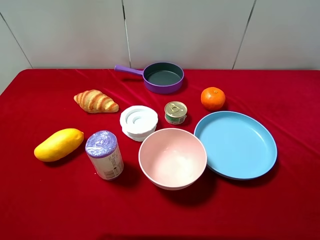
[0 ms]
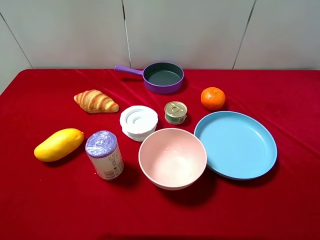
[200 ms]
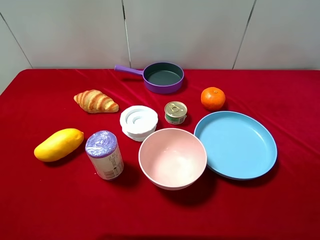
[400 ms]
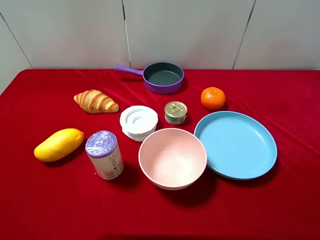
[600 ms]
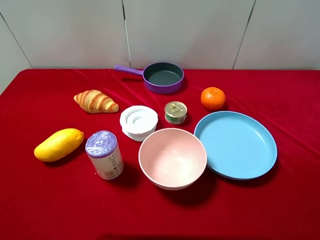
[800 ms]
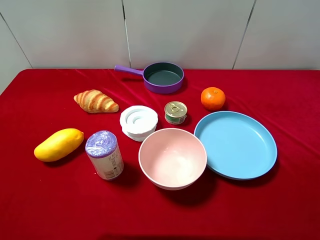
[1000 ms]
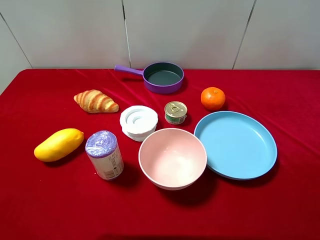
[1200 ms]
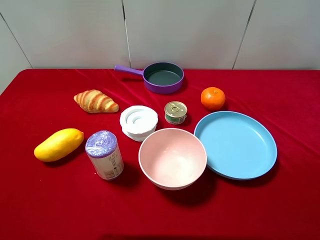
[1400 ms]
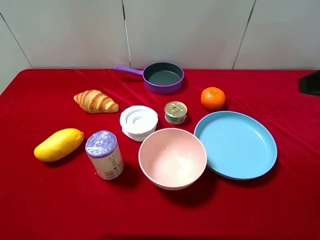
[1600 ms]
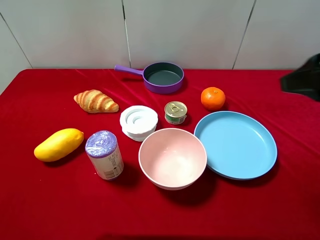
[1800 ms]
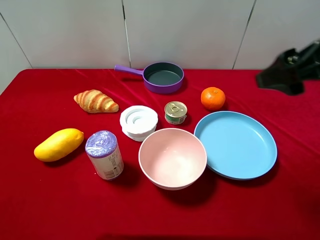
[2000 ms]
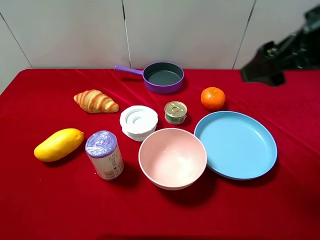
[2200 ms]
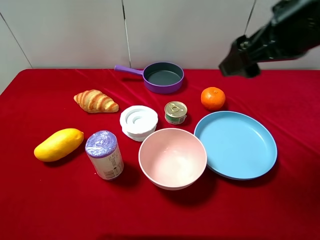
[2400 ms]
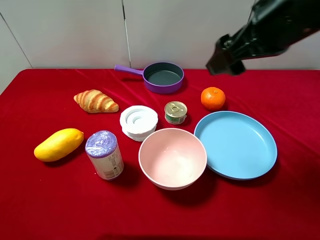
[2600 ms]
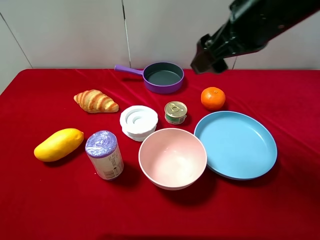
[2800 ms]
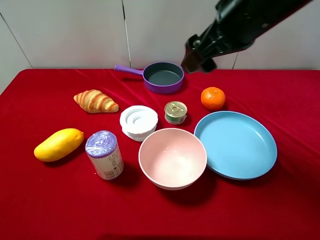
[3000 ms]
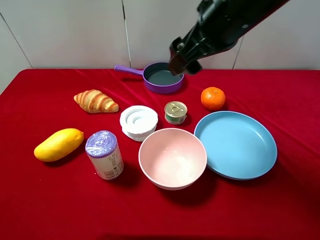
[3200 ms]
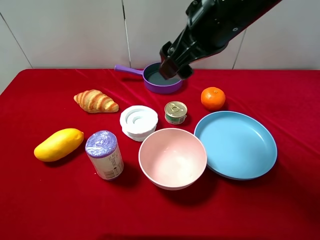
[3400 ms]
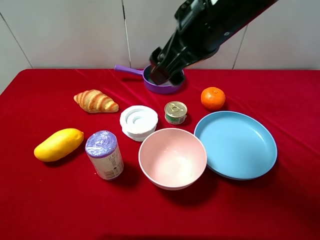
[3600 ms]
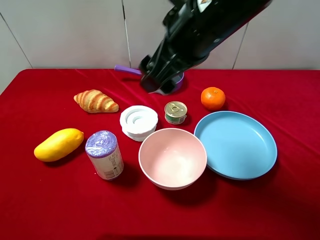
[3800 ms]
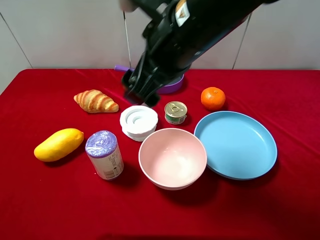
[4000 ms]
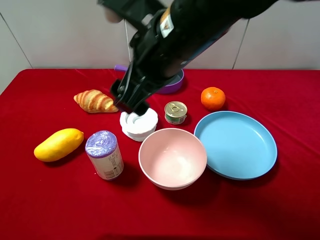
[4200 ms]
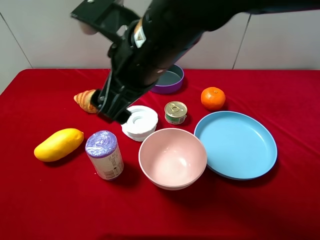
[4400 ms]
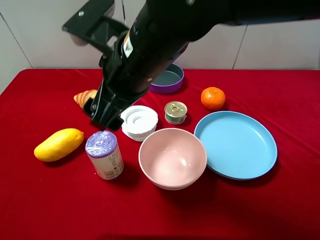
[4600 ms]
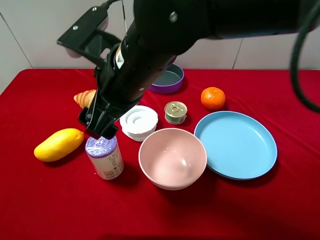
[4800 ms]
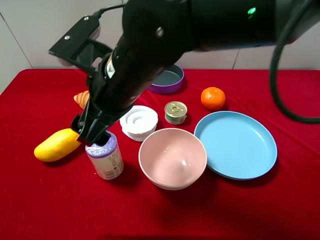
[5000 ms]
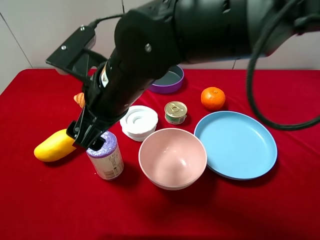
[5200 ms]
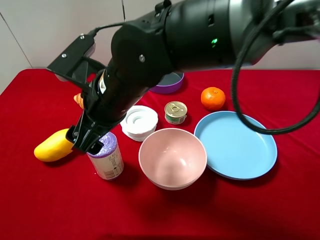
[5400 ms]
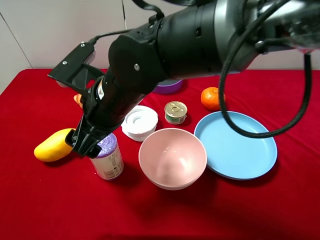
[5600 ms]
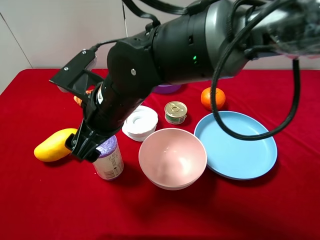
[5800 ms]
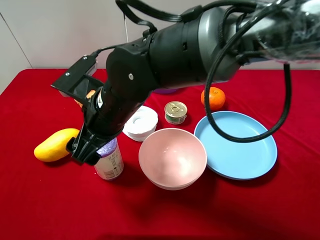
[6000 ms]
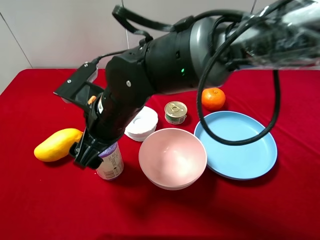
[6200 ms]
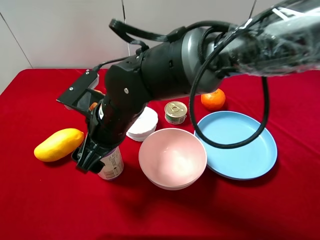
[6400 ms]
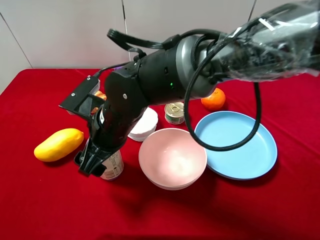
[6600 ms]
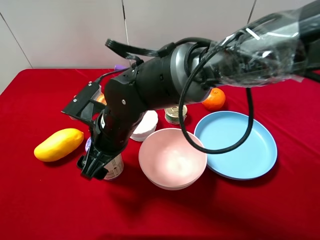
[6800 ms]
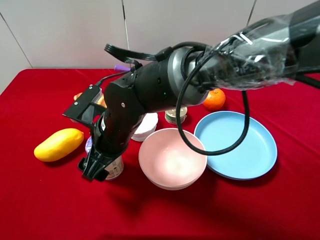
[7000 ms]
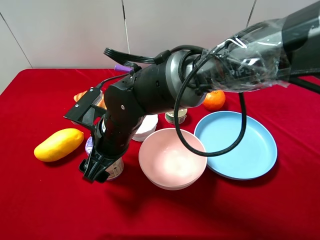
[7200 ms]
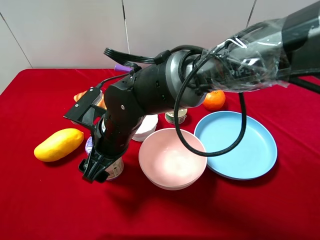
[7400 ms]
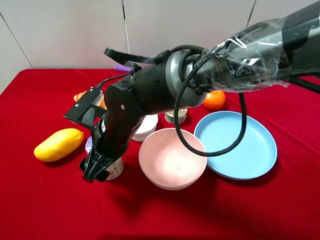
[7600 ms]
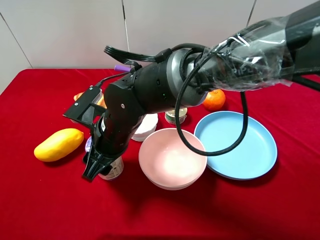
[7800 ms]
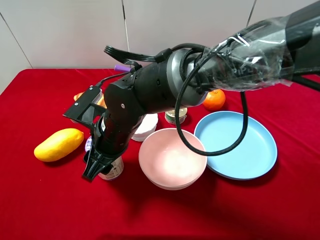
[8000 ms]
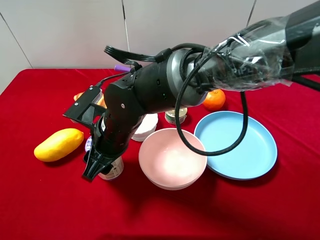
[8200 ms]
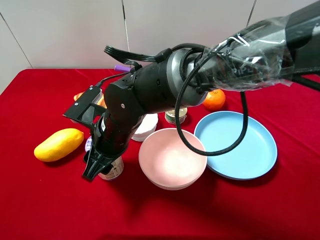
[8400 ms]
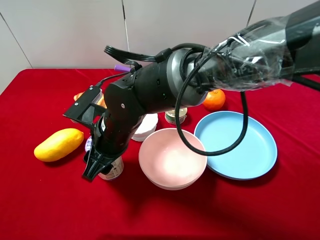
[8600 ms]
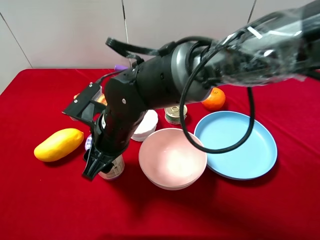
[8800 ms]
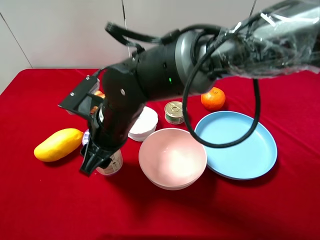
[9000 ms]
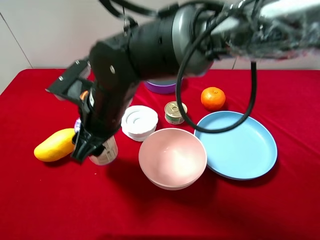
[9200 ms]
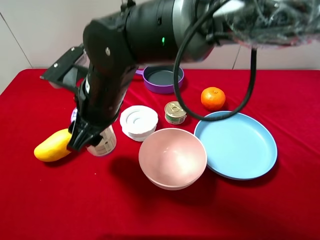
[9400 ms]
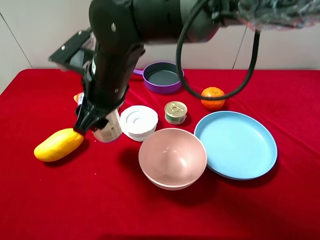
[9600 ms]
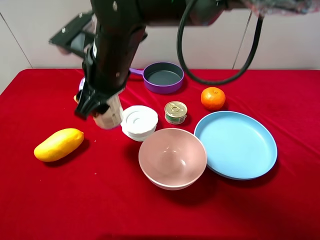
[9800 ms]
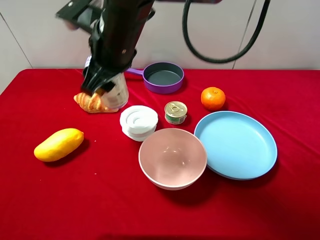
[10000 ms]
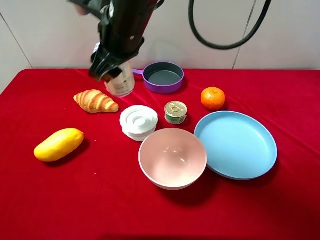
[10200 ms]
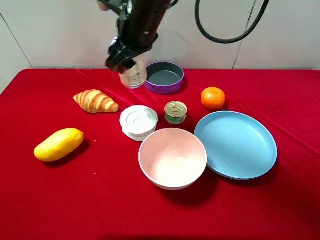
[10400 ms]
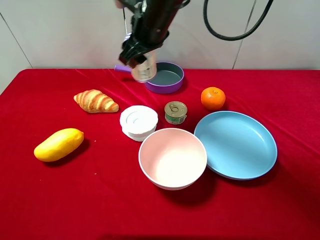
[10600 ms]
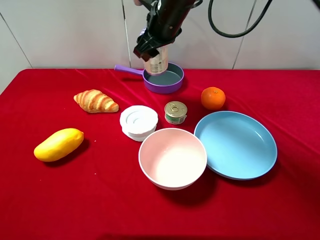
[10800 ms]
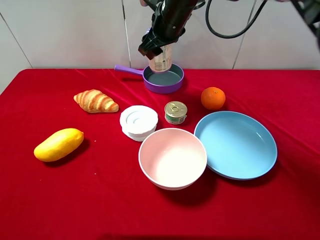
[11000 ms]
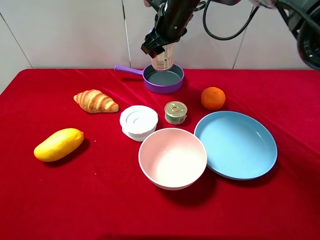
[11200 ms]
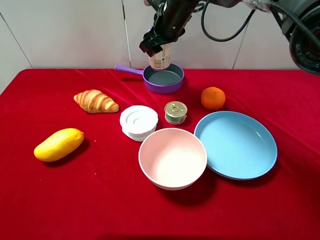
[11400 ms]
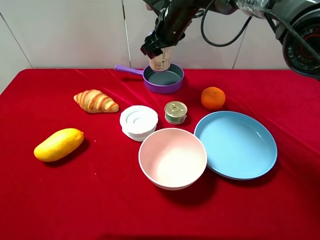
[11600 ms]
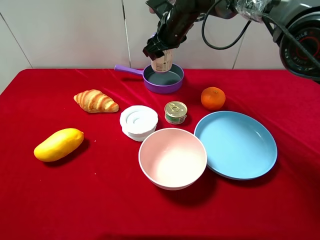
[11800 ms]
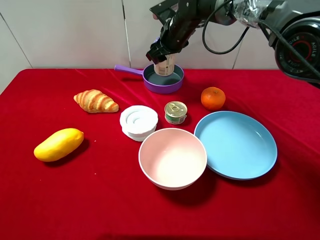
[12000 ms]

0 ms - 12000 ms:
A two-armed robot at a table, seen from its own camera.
Task of the whole recording: pick up an item with a gripper and place it in a random container on the desktop.
1600 ms - 3000 ms: The right gripper moves to the left and forward, approximately 20 cm.
3000 ms - 4400 ms: The right gripper goes some 15 cm to the left.
4400 ms - 6000 ms: The right gripper shifts roughly 10 cm downward and to the left.
6000 ms - 7600 ms: The right gripper is displaced downward by approximately 5 cm.
7600 ms - 9000 ms: The right gripper closes.
9000 ms - 10400 ms: The right gripper is displaced forward and upward by approximately 15 cm.
10400 ms - 12000 ms: The right gripper shifts about 15 cm forward, downward and to the right.

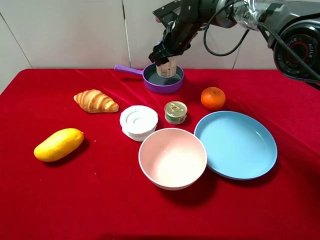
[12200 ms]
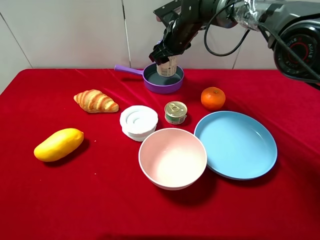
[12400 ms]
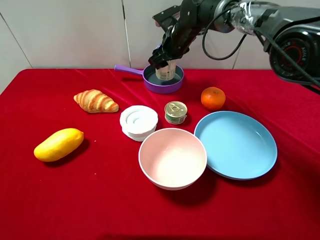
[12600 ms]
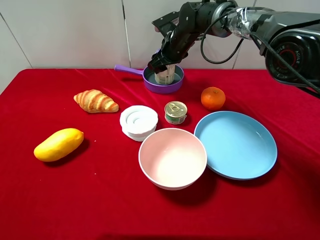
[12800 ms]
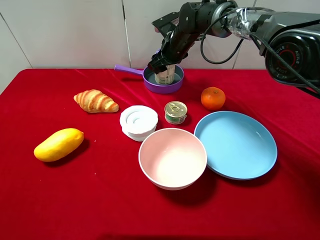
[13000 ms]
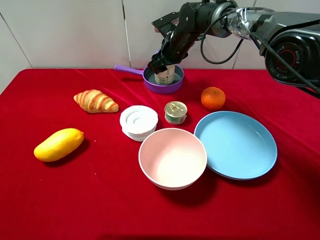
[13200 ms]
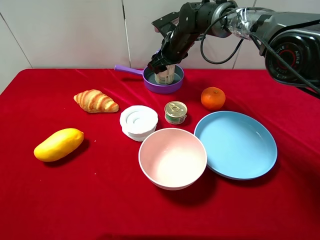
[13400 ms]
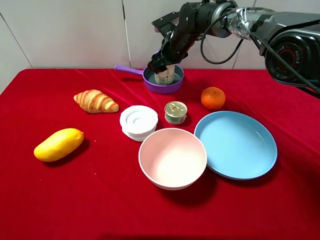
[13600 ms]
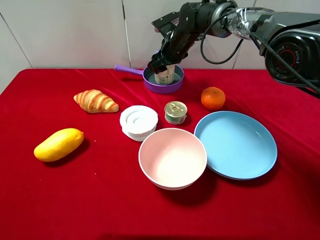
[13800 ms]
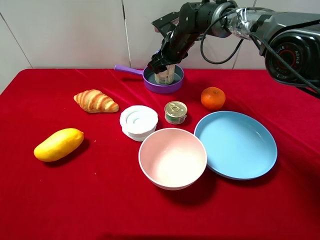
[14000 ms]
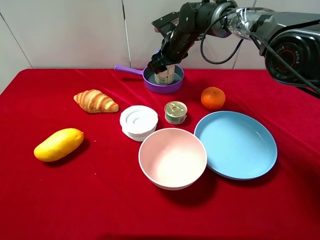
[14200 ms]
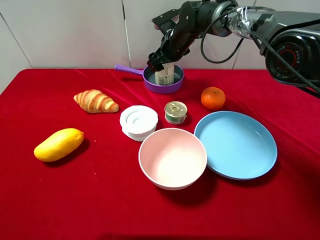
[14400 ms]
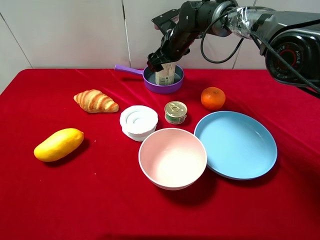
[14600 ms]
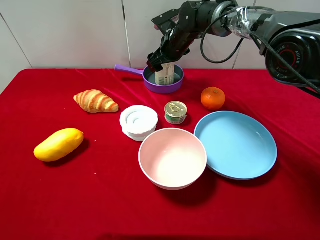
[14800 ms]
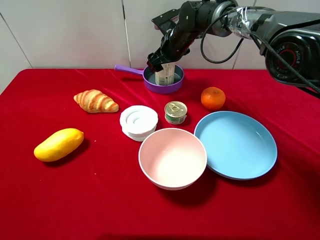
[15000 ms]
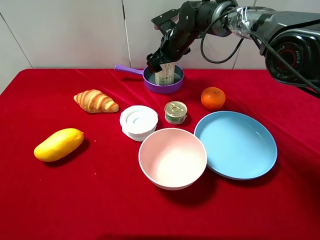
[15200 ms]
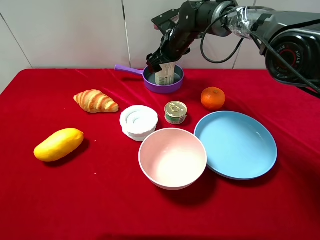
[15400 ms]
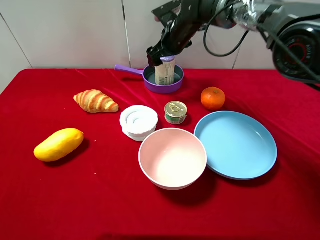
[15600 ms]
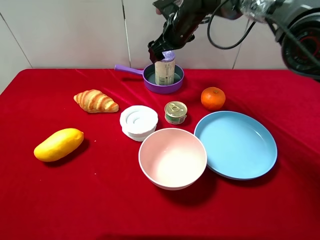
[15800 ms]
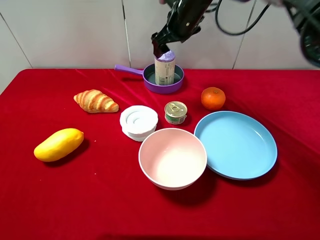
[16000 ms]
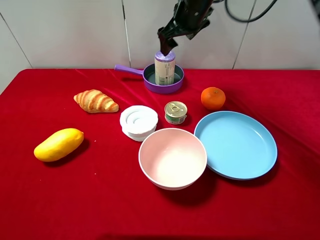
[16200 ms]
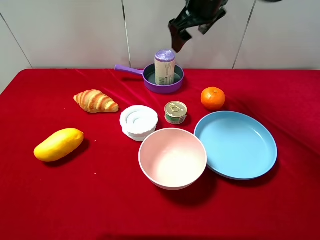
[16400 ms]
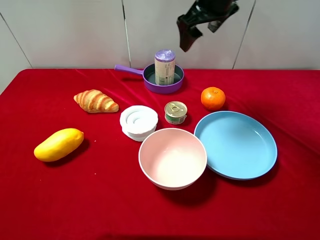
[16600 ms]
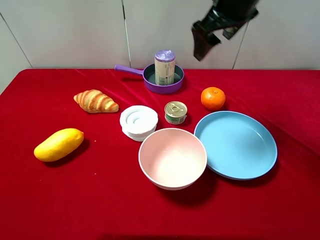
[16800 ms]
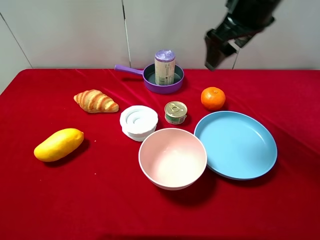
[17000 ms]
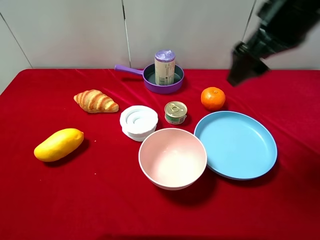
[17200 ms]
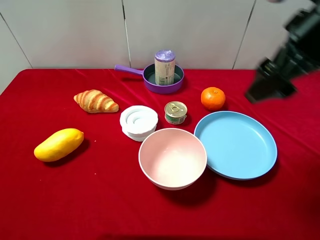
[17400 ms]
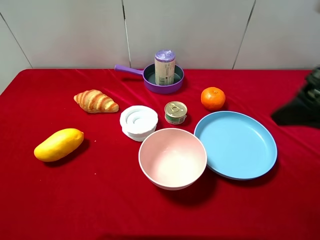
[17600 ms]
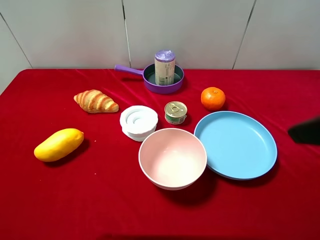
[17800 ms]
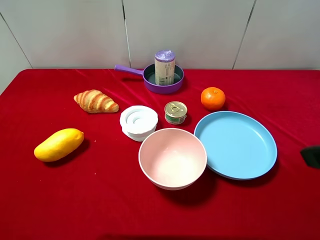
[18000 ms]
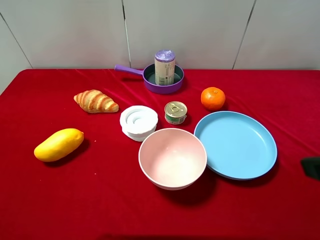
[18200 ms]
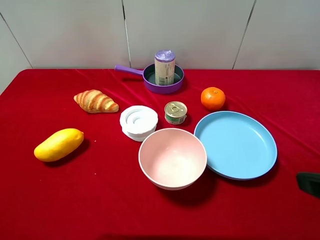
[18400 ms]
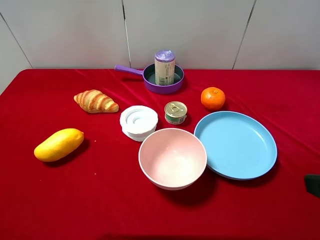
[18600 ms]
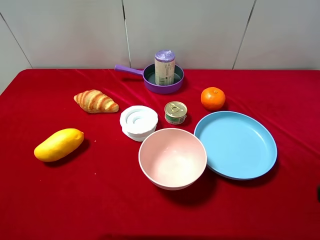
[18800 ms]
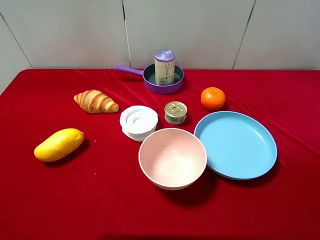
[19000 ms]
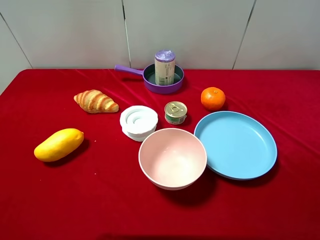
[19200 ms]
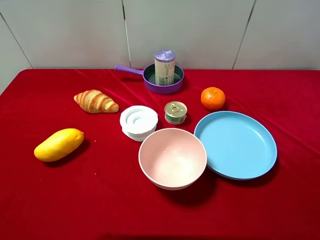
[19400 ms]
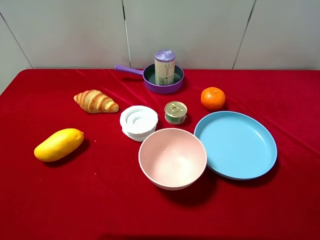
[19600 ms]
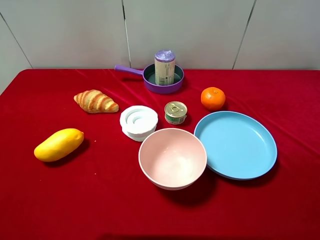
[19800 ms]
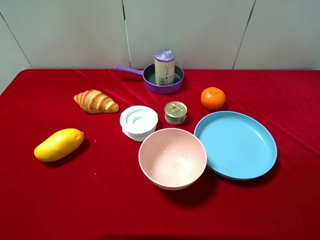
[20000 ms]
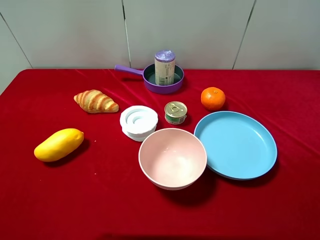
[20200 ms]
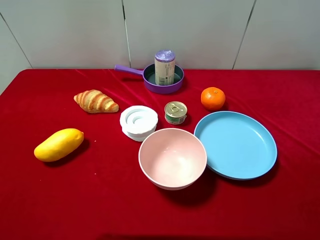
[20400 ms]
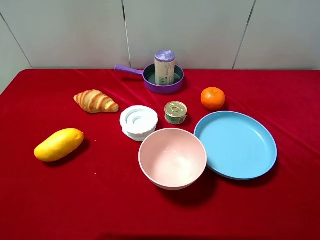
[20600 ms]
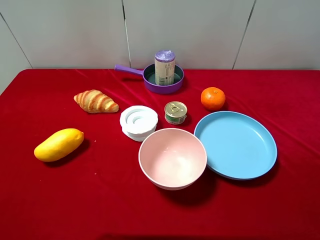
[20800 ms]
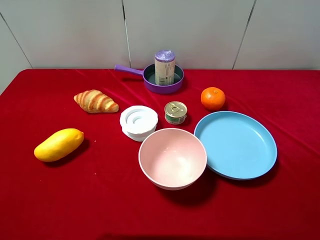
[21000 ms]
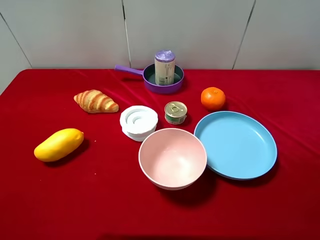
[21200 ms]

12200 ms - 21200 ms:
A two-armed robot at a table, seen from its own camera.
Task of the whole recording: pick up an item with a gripper and place it in a random container on the desktop.
12200 ms - 13800 ms: There are only small adjustments of the grippers.
13800 ms - 15200 ms: The right gripper opens its fingers.
15200 ms - 16600 ms: The right gripper travels upward and backward by roughly 20 cm.
16600 ms - 18200 ms: The right gripper travels backward and to the right by approximately 35 cm.

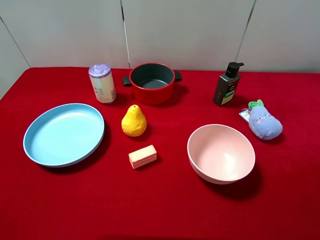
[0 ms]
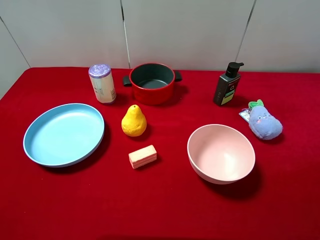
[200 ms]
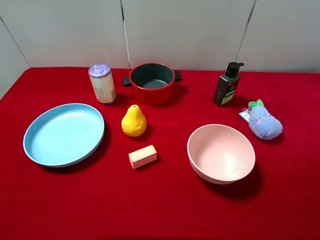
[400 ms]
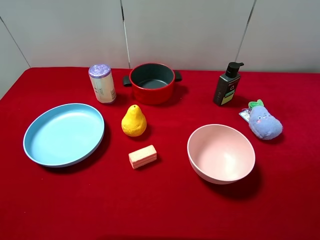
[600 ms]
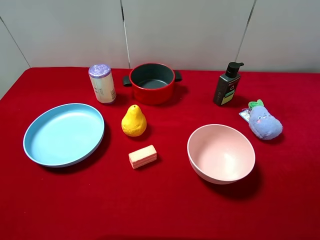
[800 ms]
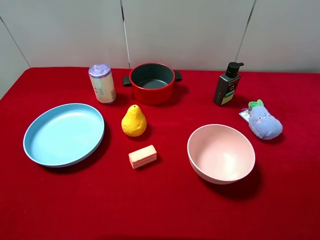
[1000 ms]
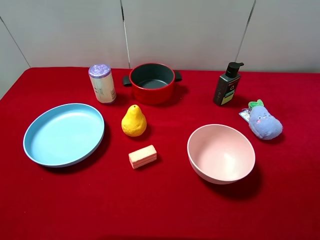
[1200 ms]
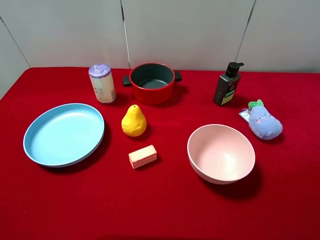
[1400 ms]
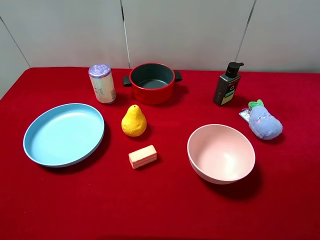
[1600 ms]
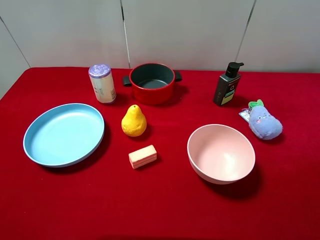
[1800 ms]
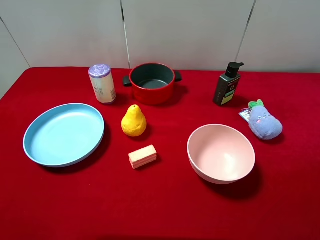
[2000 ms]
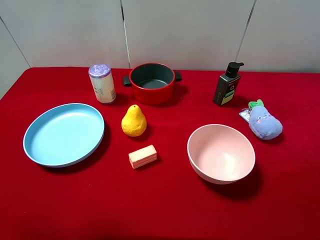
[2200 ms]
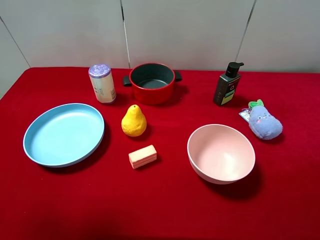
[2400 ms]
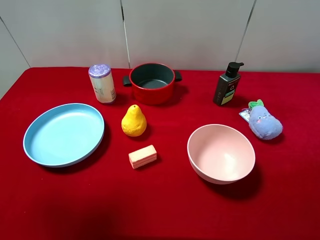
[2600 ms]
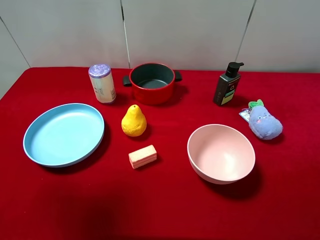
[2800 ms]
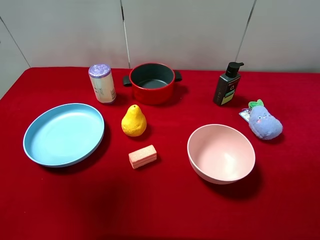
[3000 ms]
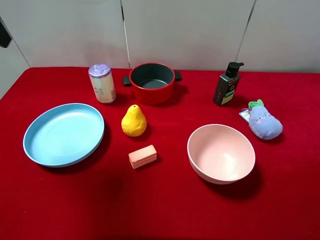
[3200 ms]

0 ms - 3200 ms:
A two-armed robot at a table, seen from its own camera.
Task of the whole recording: pick up an item with a gripper and place it in a random container on the desktop.
1600 ms - 3200 ms: The left gripper shifts approximately 25 cm forward.
